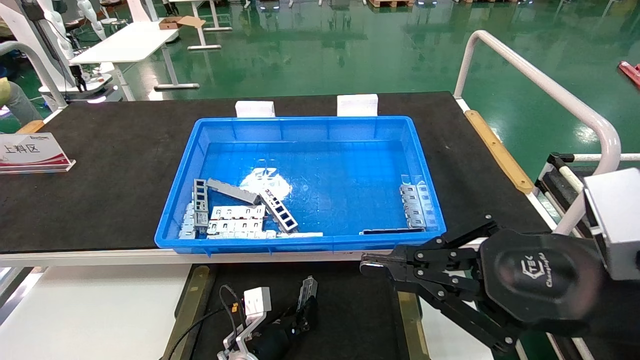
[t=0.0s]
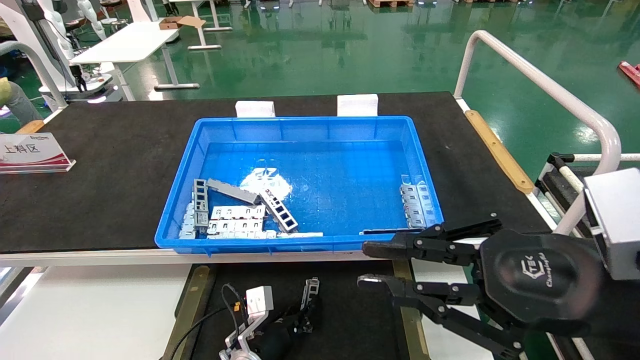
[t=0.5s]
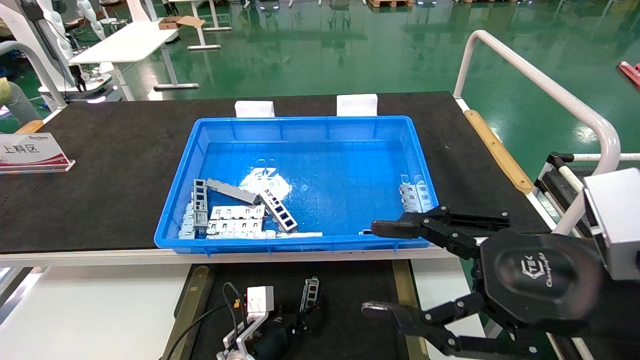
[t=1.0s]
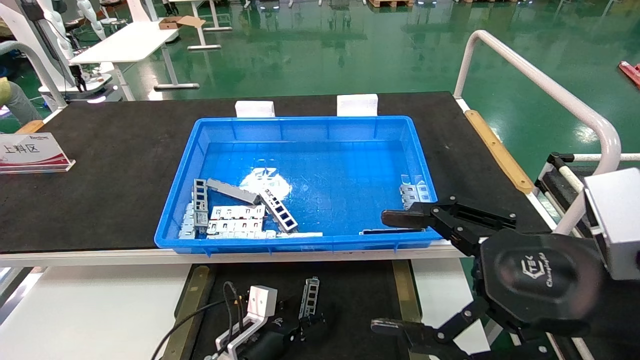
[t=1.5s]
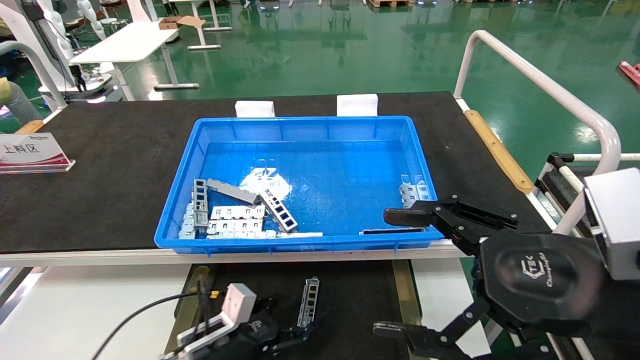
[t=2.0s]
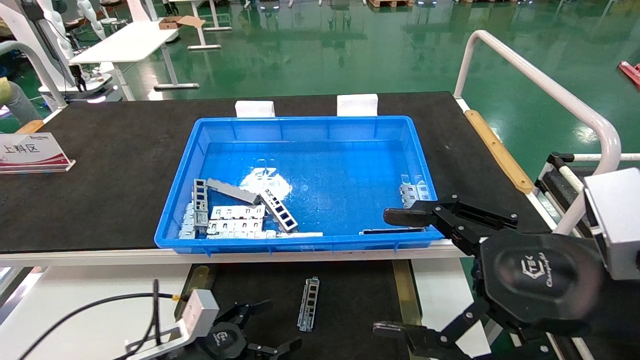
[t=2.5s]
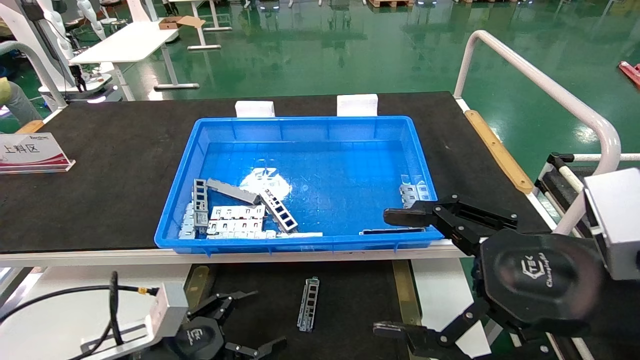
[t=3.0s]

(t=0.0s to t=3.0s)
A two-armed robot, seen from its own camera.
Task of the whole recording: Grasp the part with one hand and place it on the black container.
t=0.0s - t=1.5s: The left gripper opens its fingers. The right gripper opens up.
t=1.5s - t=3.0s: The left gripper travels to the left, upward and backward by about 20 cm.

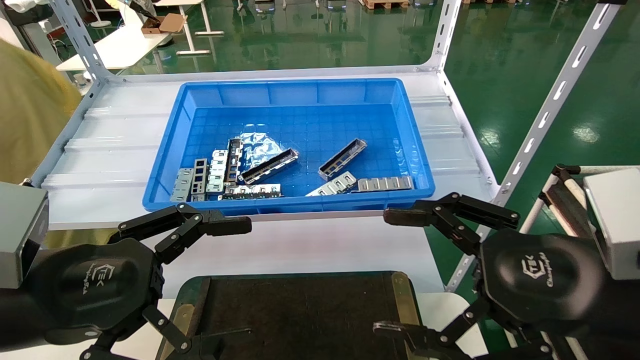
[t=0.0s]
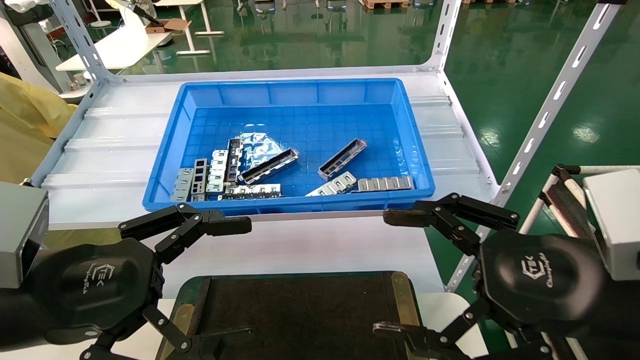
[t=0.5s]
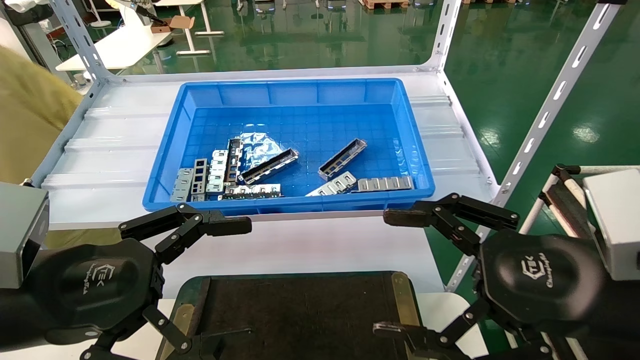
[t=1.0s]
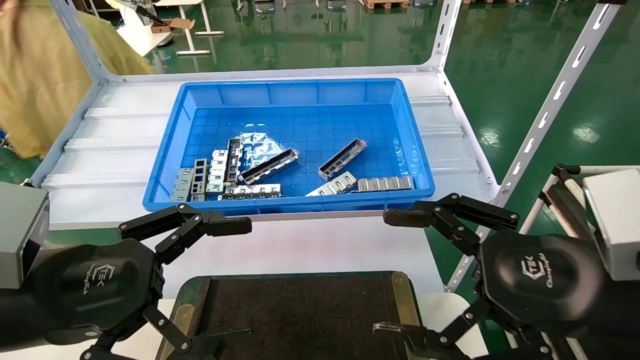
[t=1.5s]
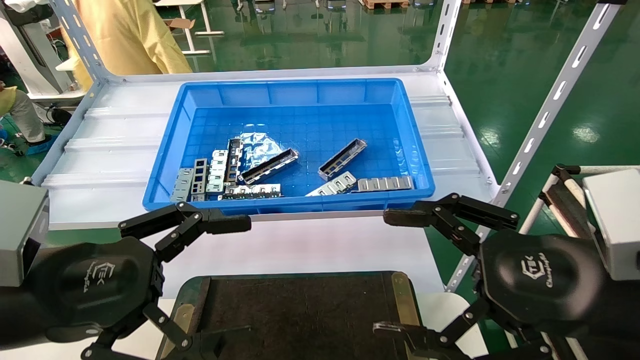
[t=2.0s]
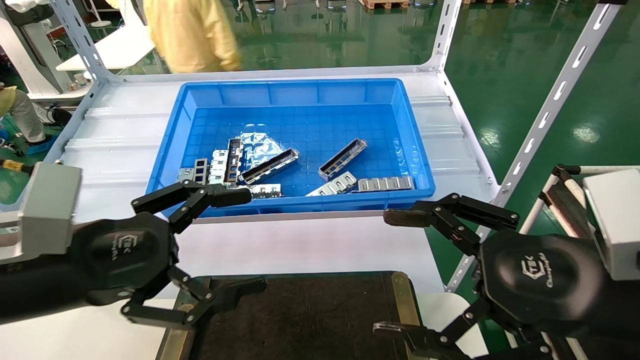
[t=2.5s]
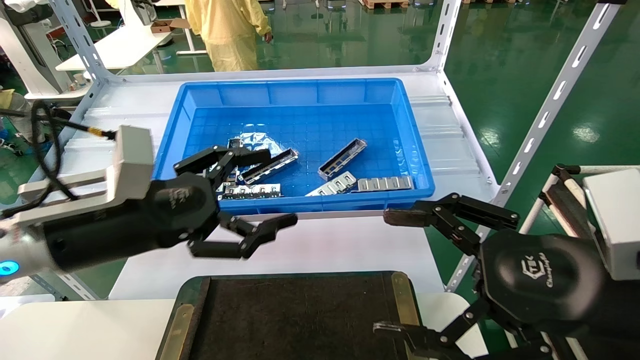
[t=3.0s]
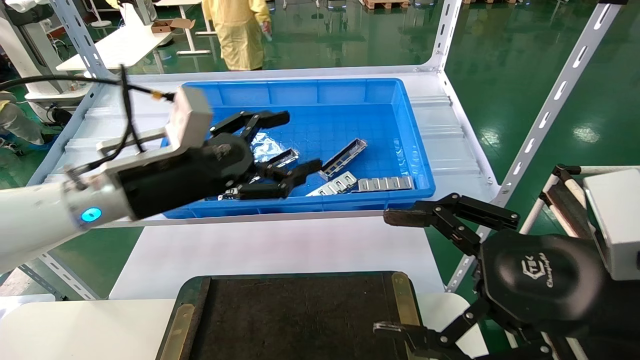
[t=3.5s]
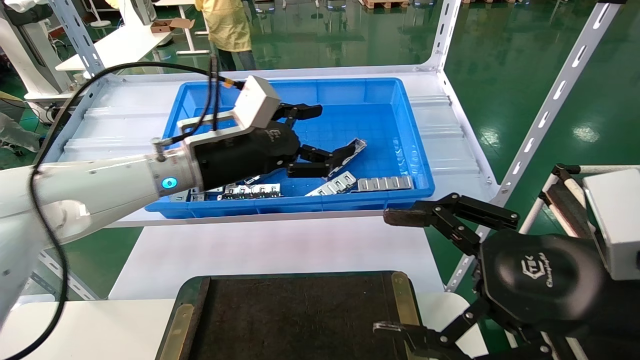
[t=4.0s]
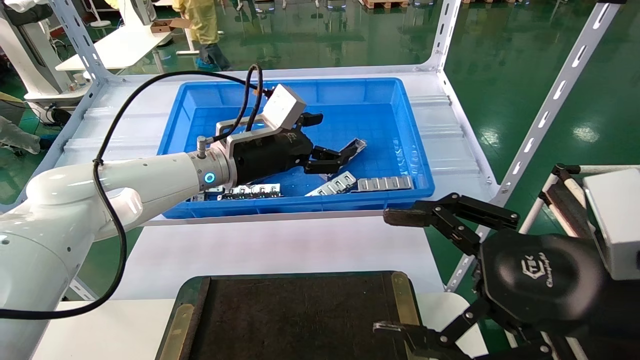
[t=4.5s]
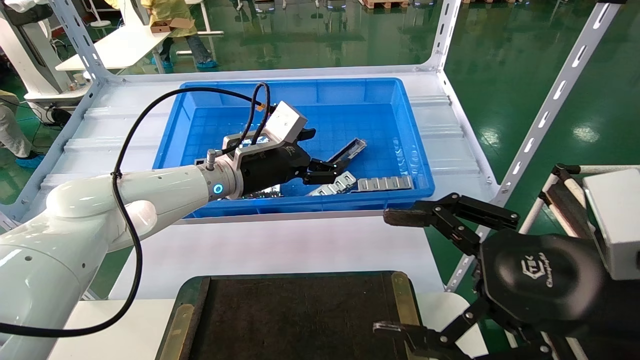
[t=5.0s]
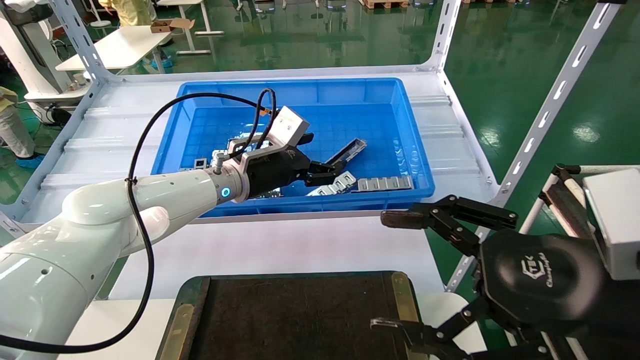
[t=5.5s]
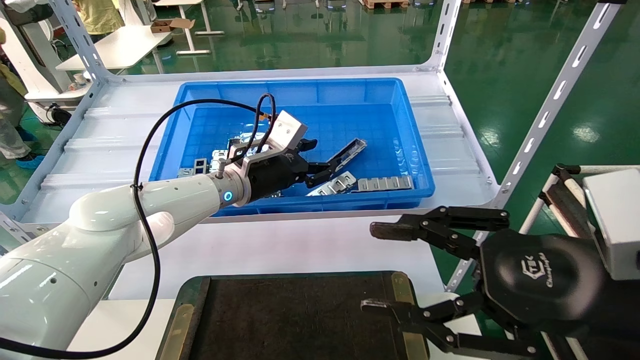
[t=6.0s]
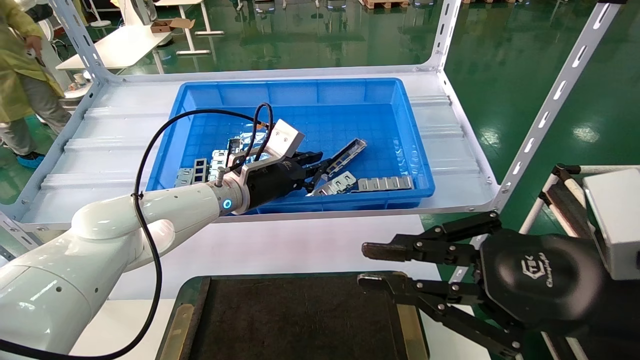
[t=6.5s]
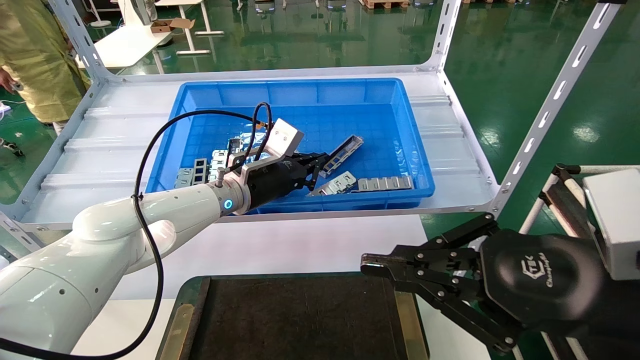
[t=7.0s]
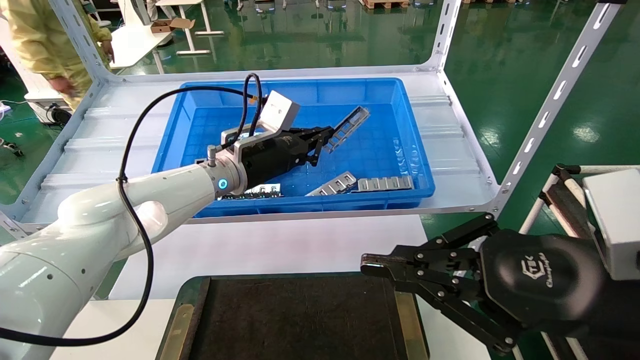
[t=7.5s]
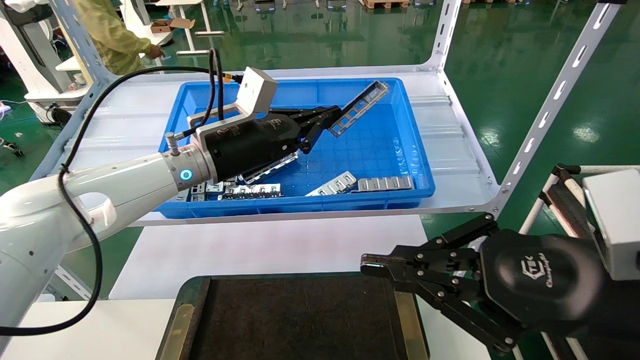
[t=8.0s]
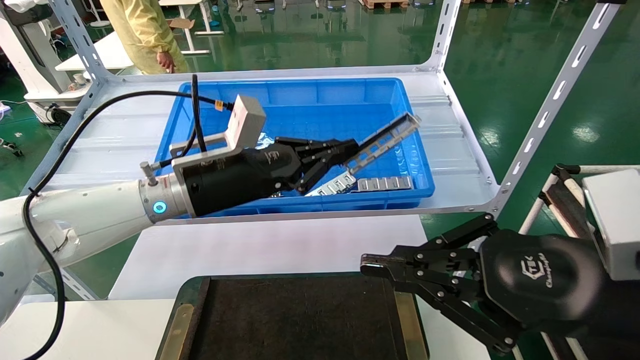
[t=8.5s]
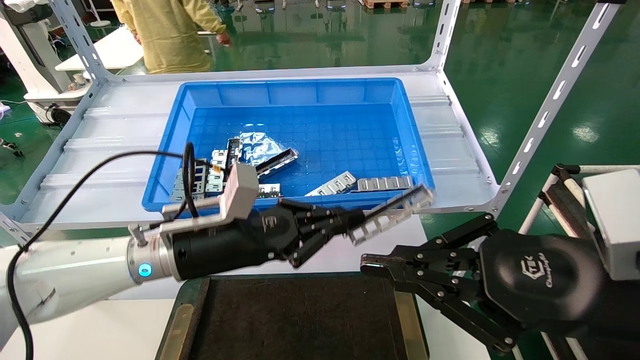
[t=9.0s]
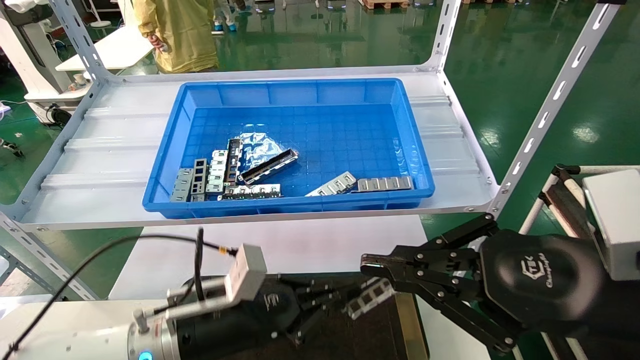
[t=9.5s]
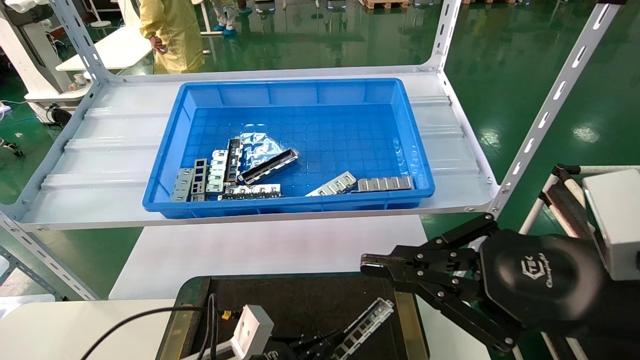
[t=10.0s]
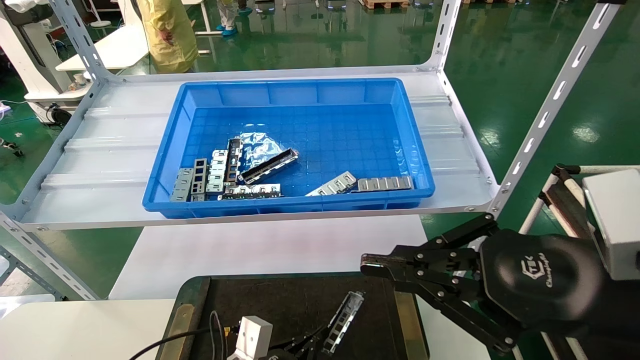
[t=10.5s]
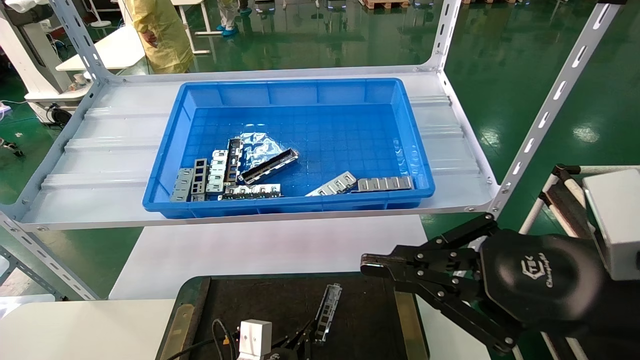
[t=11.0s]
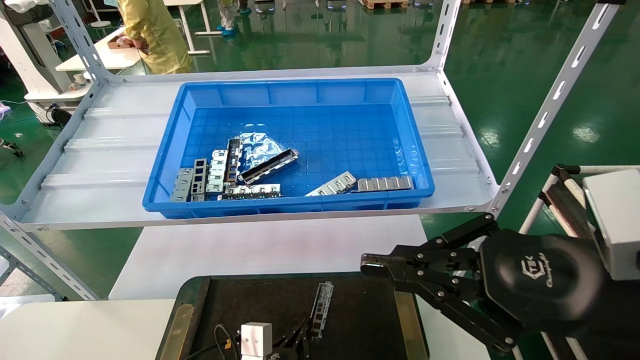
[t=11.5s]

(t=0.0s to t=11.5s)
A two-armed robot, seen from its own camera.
Task of the whole recording: Grasp the part with one hand and place it on the black container.
Step, t=2.5s - t=6.5s: Pick up the front USB bracket from the feeding area.
t=0.0s - t=2.0s: The two grippers keep their place.
t=2.0s - t=4.0s: The left gripper heads forward and to the right, covering some 25 cm.
t=4.0s - t=6.0s: The left gripper is displaced forward and downward by roughly 10 cm.
t=6.0s - t=7.5s: The left gripper closes. Meanwhile the right gripper closes its fingers.
t=7.5s - t=9.5s: The left gripper moves downward and backward, about 25 cm.
t=9.5s - t=11.5s: The left gripper goes about 20 cm downward.

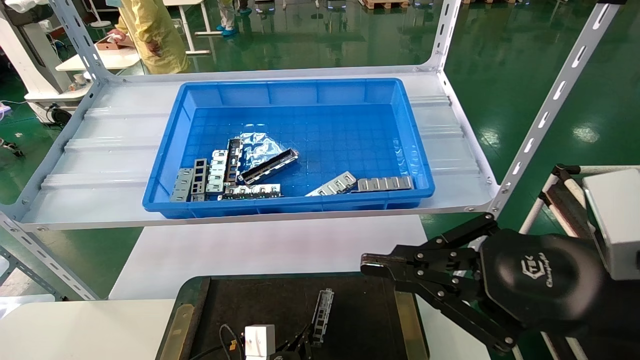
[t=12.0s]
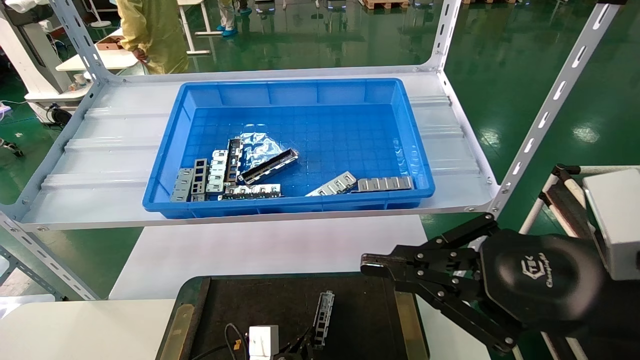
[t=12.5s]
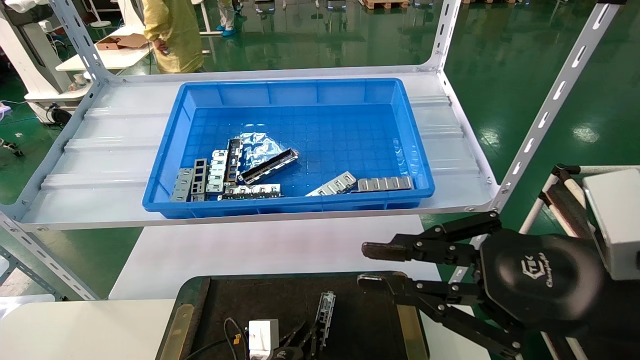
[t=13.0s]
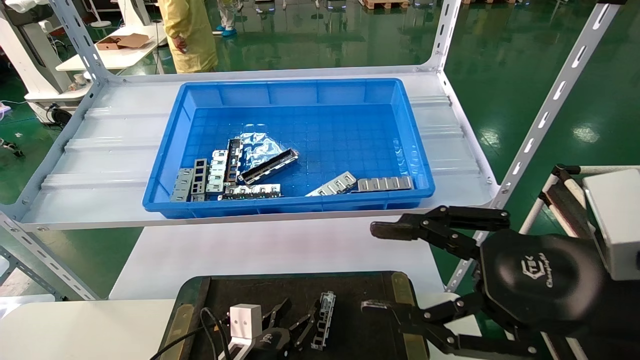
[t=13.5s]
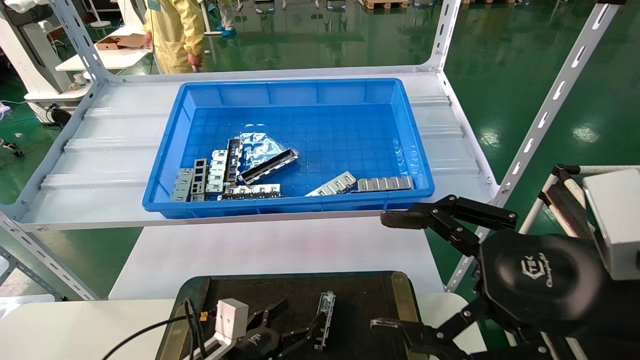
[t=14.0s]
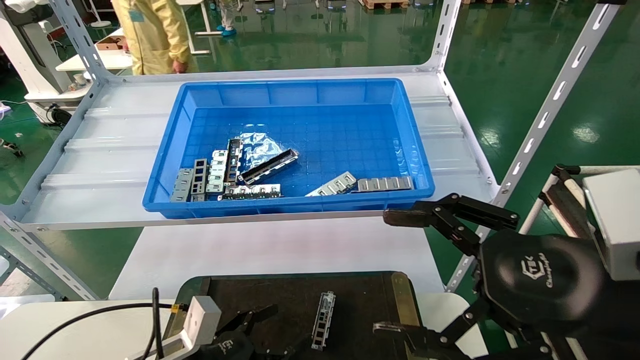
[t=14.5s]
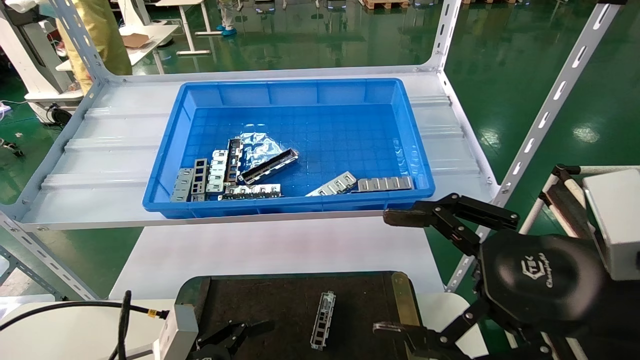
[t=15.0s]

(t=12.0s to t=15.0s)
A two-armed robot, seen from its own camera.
Task of the whole recording: Grasp the part with one hand and place it on the black container.
t=12.0s - t=13.5s: The right gripper opens its fingers. The left gripper opens up.
t=13.5s - t=15.0s: The left gripper travels to the left, upward and backward by about 15 cm, and opens up; the right gripper opens up.
